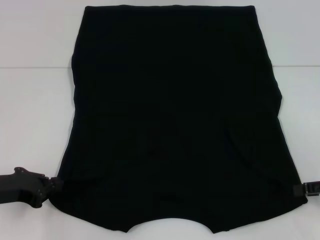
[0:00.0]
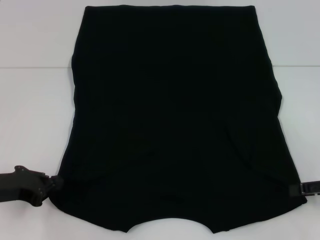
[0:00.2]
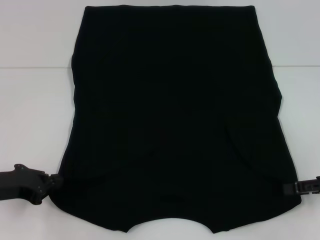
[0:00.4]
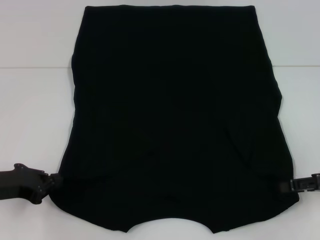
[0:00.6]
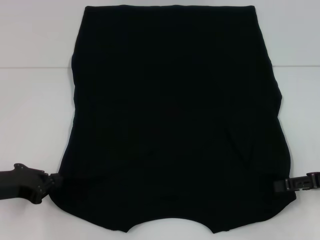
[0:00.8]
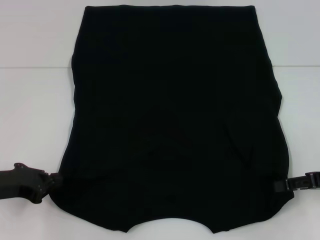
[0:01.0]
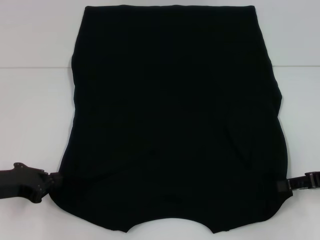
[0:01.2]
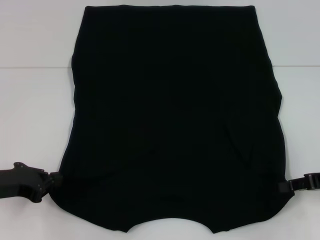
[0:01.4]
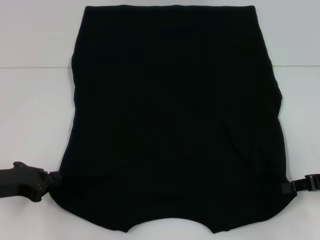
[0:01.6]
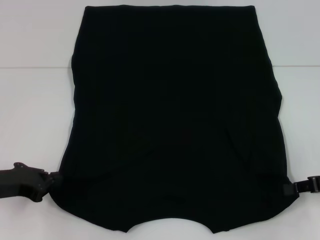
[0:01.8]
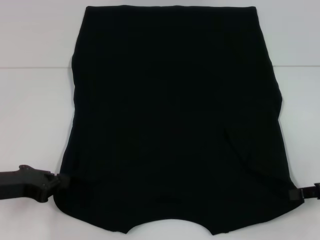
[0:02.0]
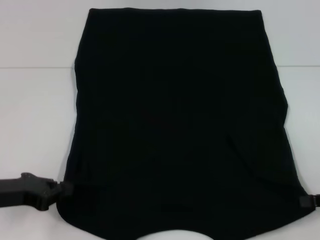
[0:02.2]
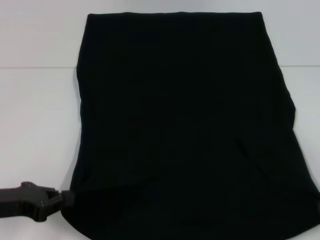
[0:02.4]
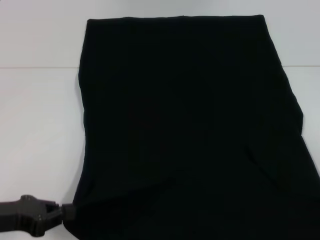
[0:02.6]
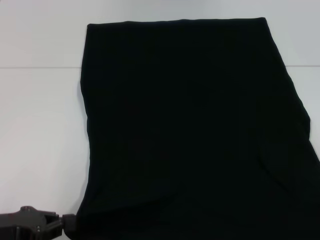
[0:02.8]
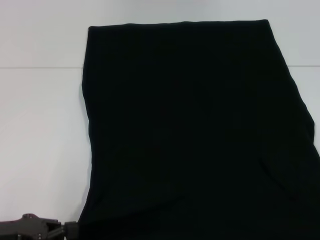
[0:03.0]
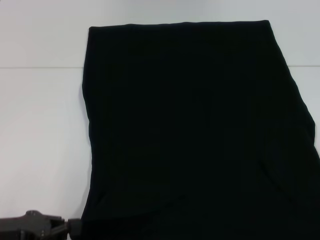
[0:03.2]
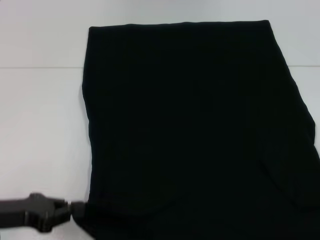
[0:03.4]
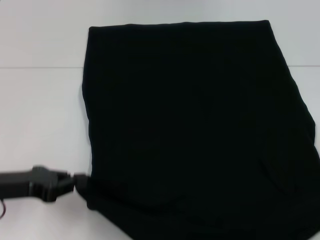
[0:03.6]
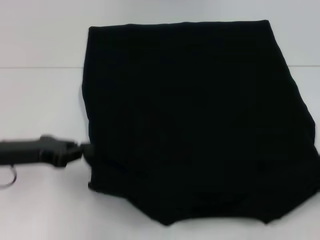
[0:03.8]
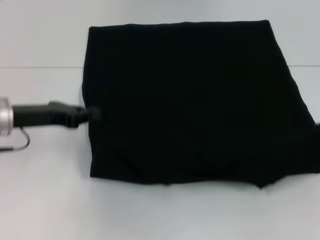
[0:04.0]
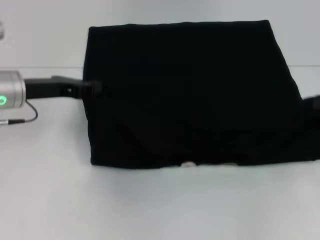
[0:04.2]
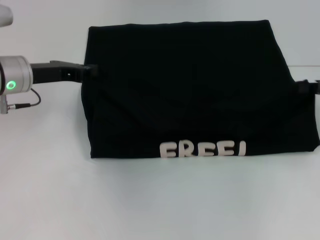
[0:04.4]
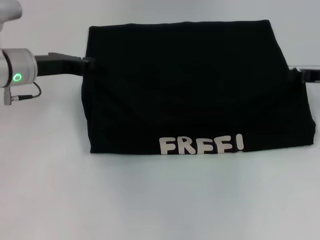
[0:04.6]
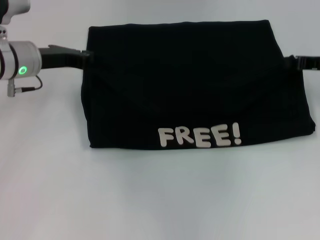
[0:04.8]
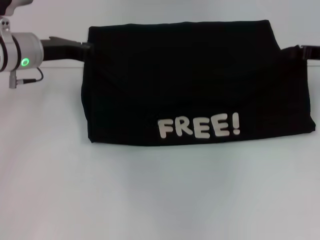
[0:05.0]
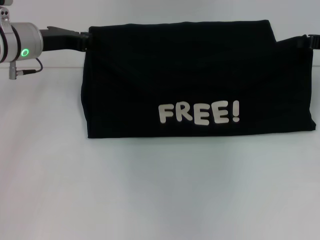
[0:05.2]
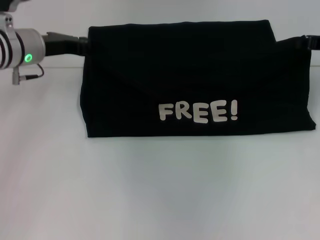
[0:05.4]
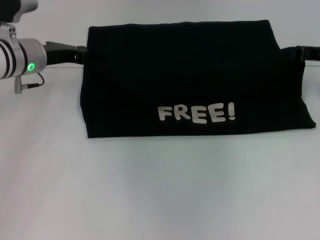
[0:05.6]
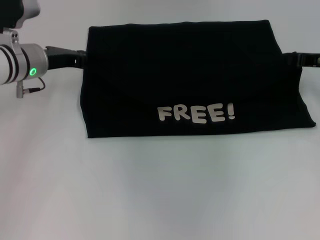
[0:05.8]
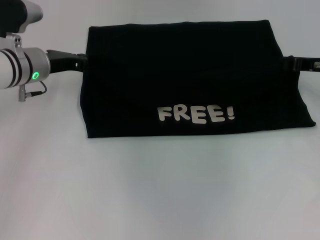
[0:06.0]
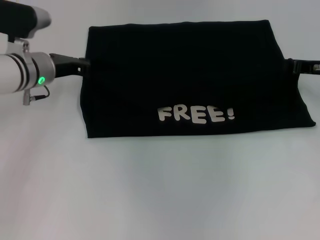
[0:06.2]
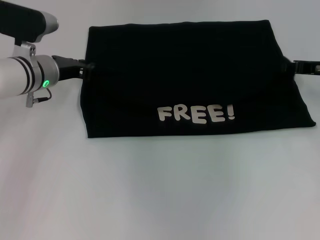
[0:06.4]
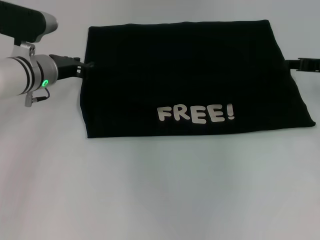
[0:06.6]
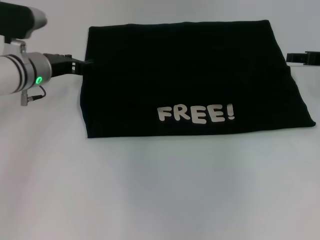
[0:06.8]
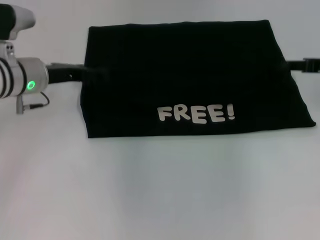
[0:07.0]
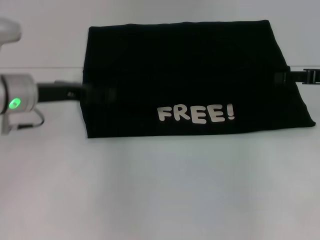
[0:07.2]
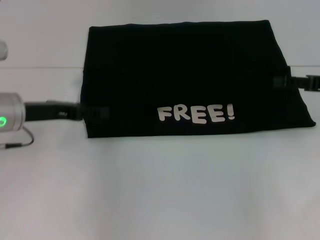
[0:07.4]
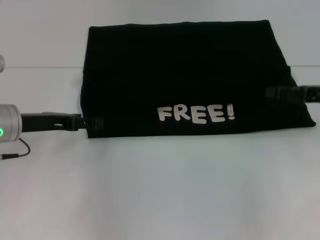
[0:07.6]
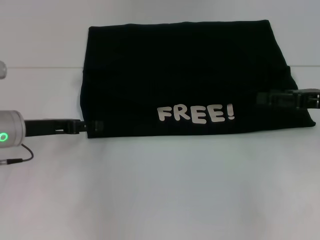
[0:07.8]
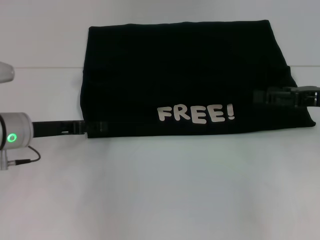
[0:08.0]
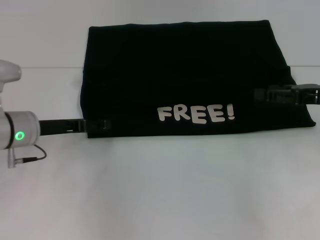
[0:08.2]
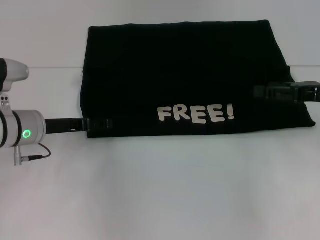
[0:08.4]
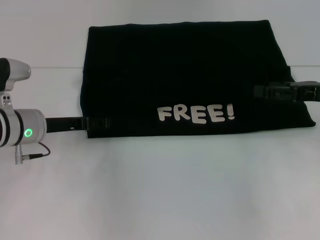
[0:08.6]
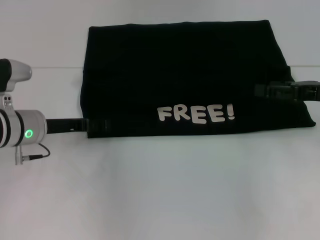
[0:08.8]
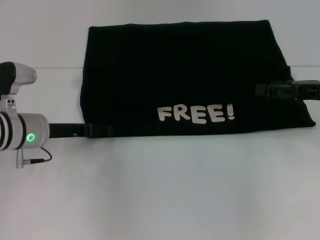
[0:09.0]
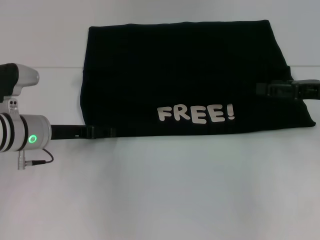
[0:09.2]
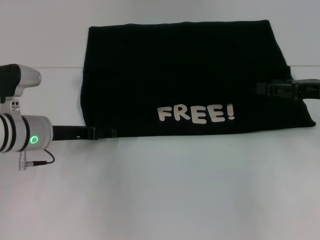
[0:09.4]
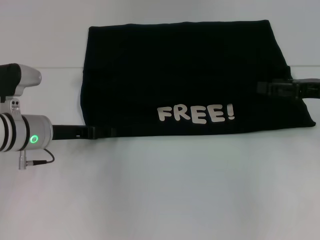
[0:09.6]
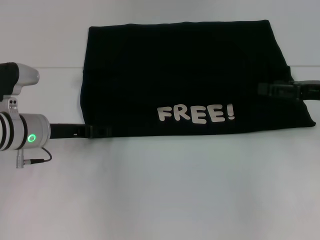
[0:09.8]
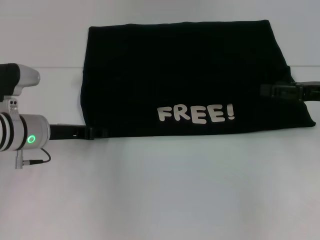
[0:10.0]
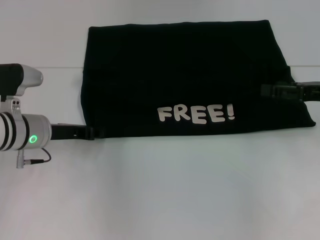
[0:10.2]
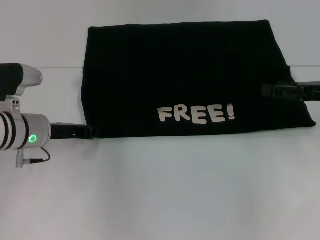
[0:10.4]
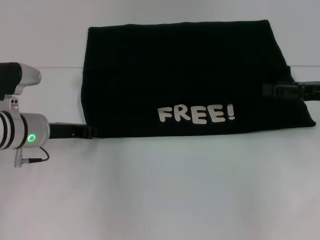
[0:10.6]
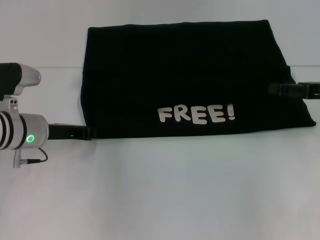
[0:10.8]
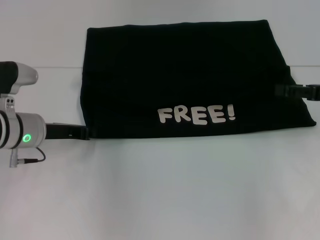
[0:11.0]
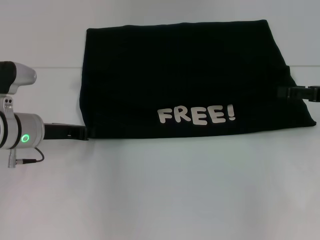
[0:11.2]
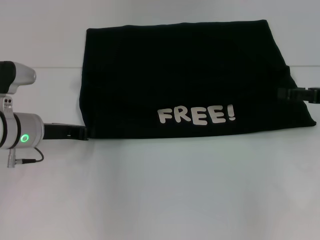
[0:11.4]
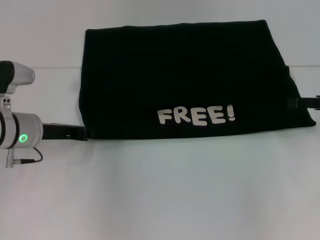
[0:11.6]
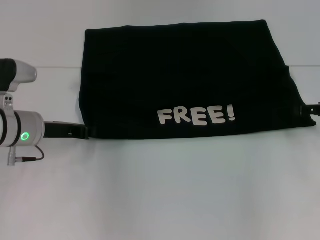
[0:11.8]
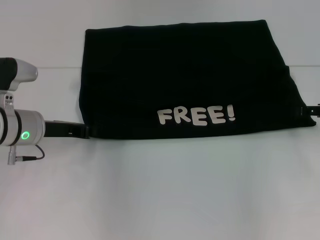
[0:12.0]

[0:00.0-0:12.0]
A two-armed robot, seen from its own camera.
Step, 0:00.6 to 0:06.6: Fold the clothes with your left hand.
Step, 0:00.6 to 0:06.6: Fold the clothes with your right hand.
0:00.0 to 0:01.6: The right gripper closes.
0:01.6 to 0:03.0: The left gripper is displaced backward by some 5 cm. Meanwhile the right gripper travels backward and to the right by roughly 15 cm.
0:03.0 to 0:04.4: The left gripper shifts approximately 20 cm forward. Meanwhile the right gripper shifts some 20 cm forward and to the left.
0:04.4 to 0:06.0: The right gripper ends up roughly 5 cm from where it was.
0:06.0 to 0:07.6: Both grippers travel together backward, roughly 10 cm. The right gripper opens its fingers. Meanwhile the left gripper opens up.
0:07.6 to 0:09.0: The grippers stay close to where they were, moving slightly.
0:09.0 to 0:10.4: The left gripper closes up.

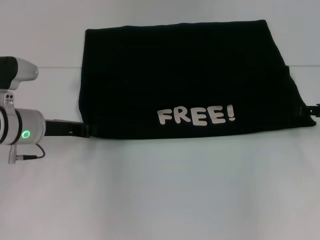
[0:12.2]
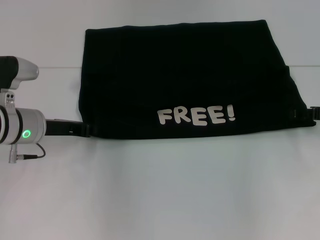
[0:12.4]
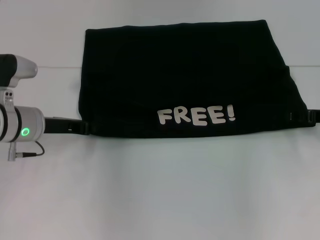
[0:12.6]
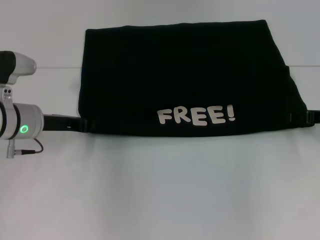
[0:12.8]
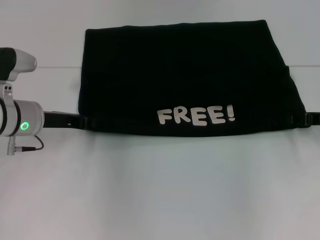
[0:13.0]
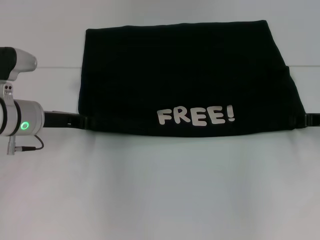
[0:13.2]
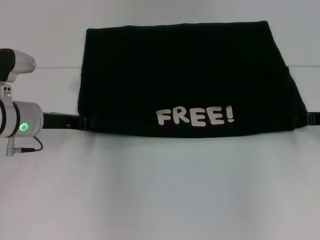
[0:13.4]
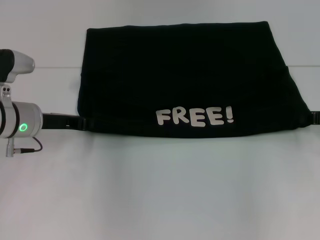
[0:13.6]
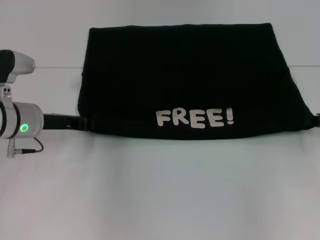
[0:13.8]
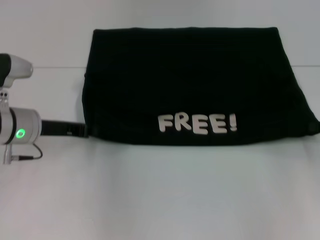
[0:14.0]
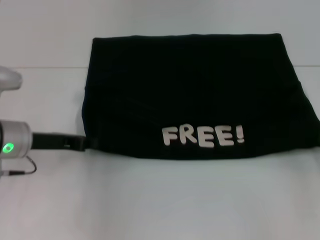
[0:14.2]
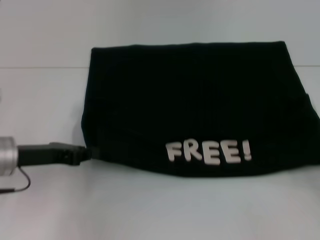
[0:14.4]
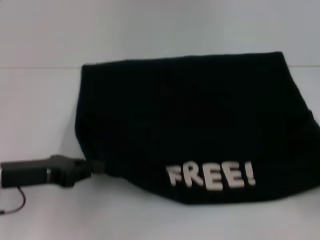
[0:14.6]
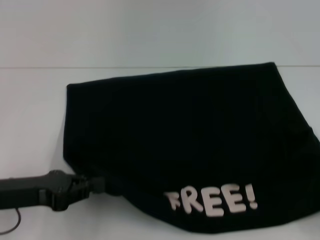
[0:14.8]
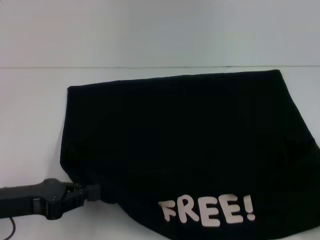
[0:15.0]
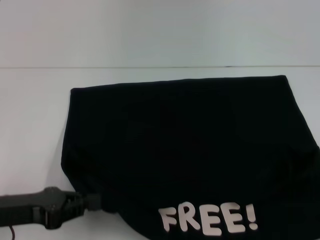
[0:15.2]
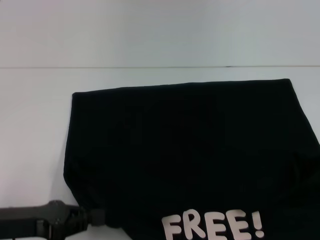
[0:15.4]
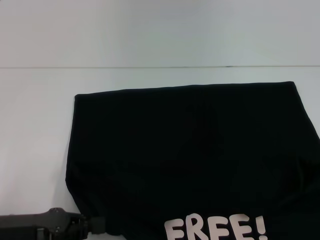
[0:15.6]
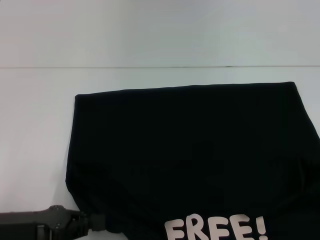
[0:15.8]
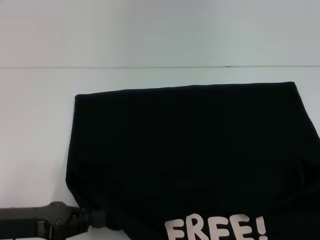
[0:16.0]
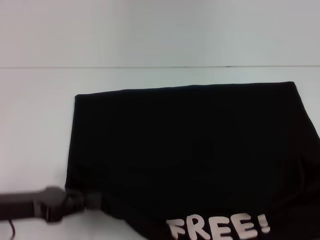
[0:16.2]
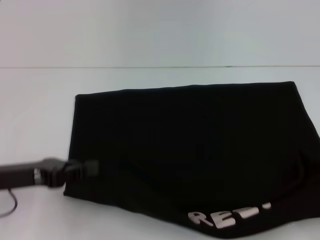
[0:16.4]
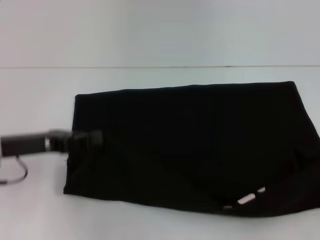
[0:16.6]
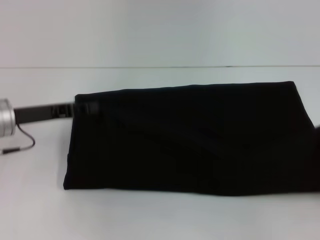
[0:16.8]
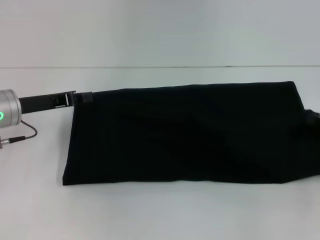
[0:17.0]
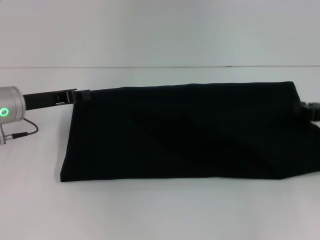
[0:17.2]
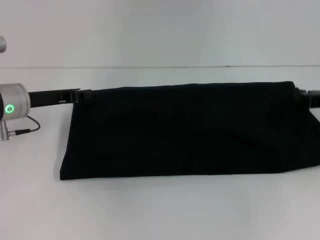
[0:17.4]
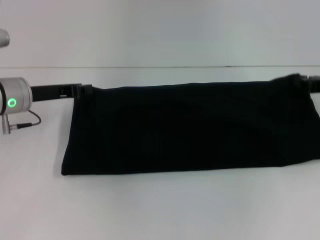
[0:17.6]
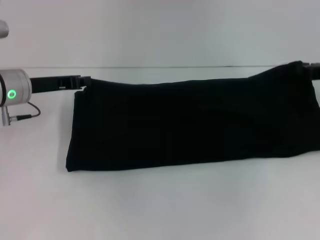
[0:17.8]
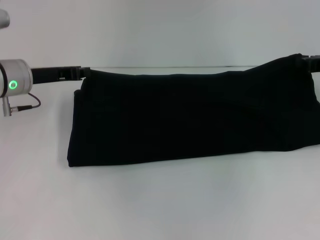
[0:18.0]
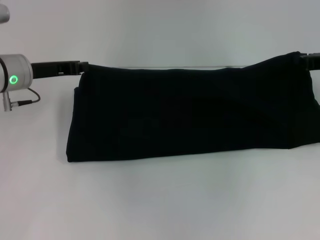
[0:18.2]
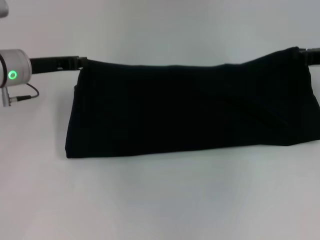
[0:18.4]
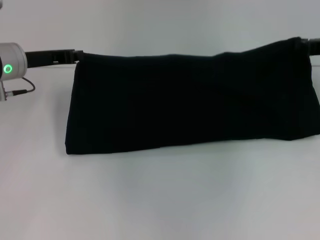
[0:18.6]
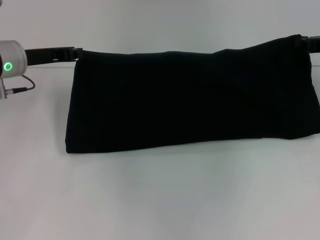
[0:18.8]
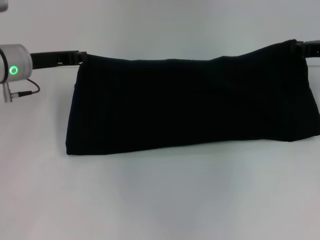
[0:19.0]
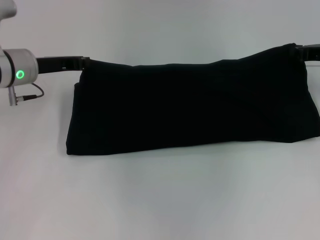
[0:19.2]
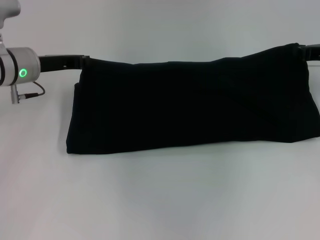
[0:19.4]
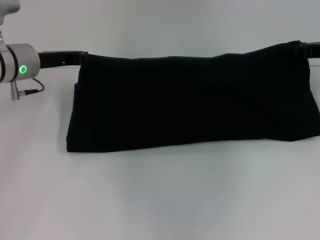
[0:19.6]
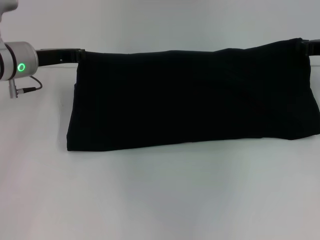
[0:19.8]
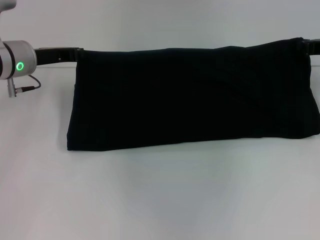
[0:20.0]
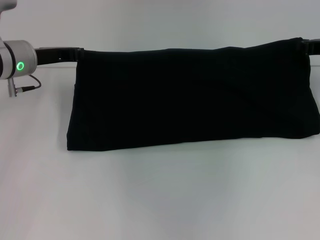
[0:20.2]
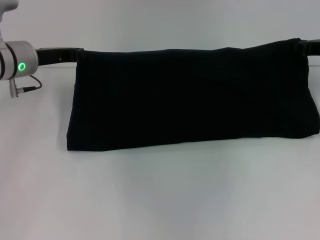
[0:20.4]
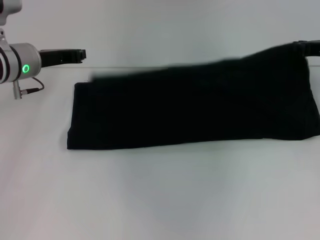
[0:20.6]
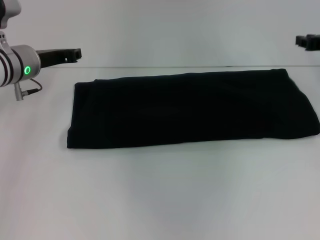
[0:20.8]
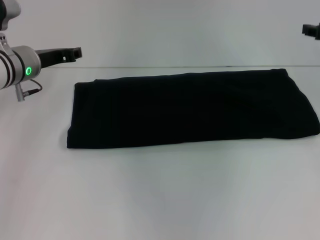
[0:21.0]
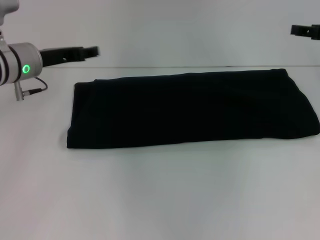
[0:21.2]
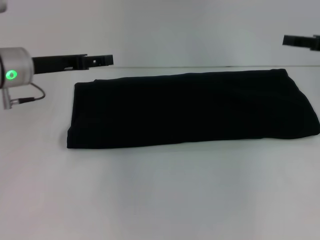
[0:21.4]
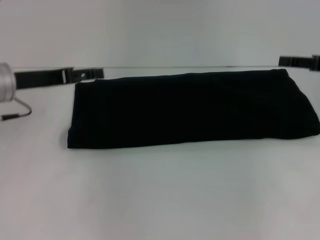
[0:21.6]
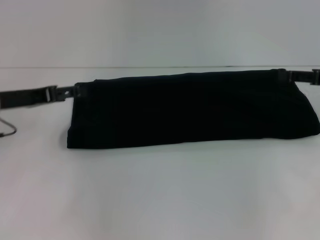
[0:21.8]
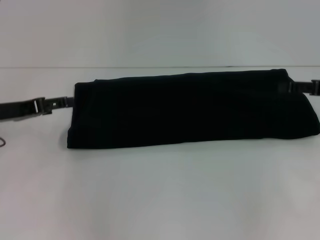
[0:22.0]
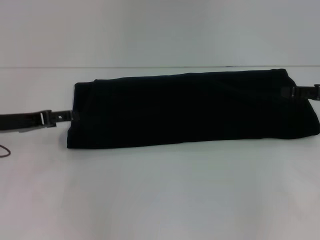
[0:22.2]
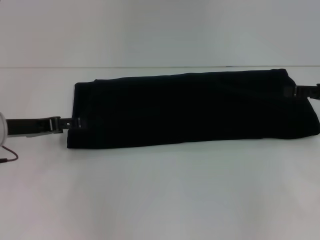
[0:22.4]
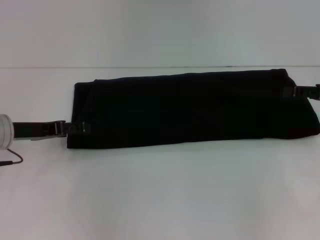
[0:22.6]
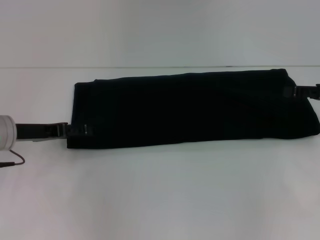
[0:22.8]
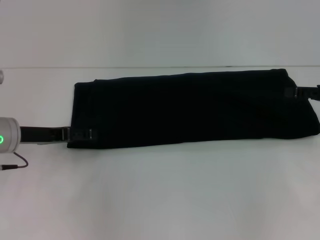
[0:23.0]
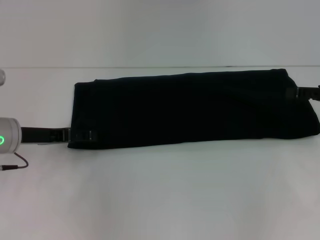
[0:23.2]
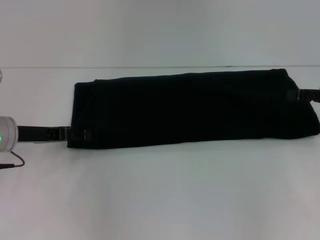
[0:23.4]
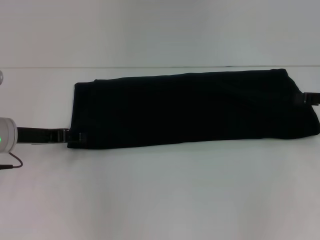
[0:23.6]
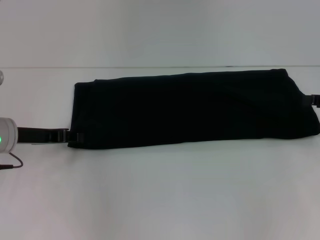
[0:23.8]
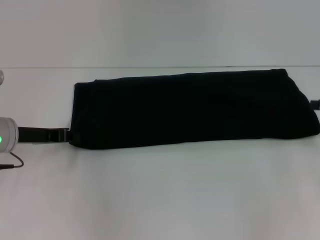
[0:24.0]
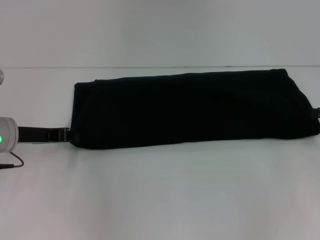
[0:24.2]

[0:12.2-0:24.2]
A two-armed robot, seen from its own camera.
Step, 0:12.2 to 0:15.2: Pull the clothes with your left hand.
Step, 0:12.2 to 0:15.2: Pull the clothes with your right hand.
Step, 0:15.4 to 0:20.8: Fold the clothes with your right hand.
0:12.2 to 0:13.8: The right gripper closes.
0:13.8 to 0:15.2: Both grippers move backward, roughly 20 cm.
0:15.2 to 0:16.6: Both grippers travel together forward, about 10 cm.
0:16.6 to 0:18.2: The right gripper is displaced forward and to the left by roughly 20 cm; the left gripper shifts roughly 10 cm forward.
0:18.2 to 0:19.8: There are only small adjustments of the grippers.
0:19.8 to 0:21.2: The right gripper opens its fingers. The left gripper opens.
0:21.2 to 0:22.6: The left gripper heads backward and downward, covering roughly 10 cm; the right gripper heads backward, covering about 5 cm.
0:22.6 to 0:24.2: The left gripper closes up.
